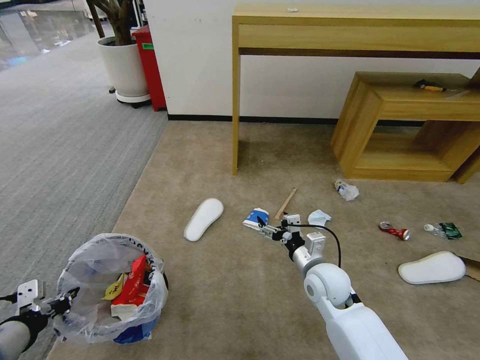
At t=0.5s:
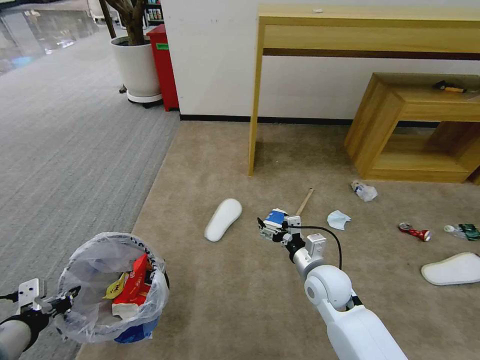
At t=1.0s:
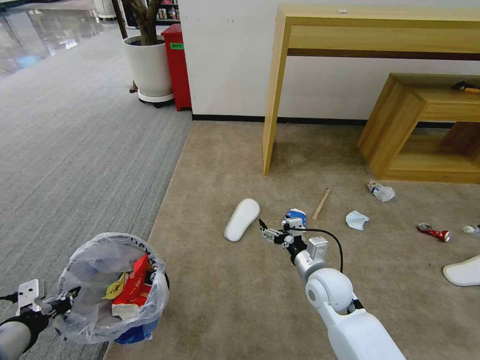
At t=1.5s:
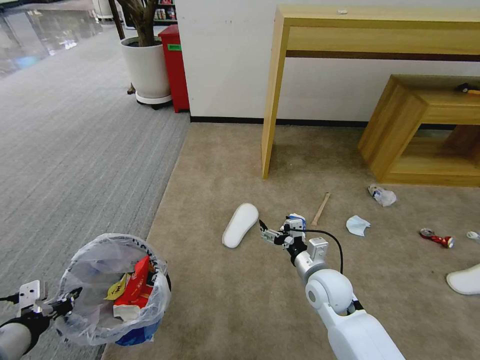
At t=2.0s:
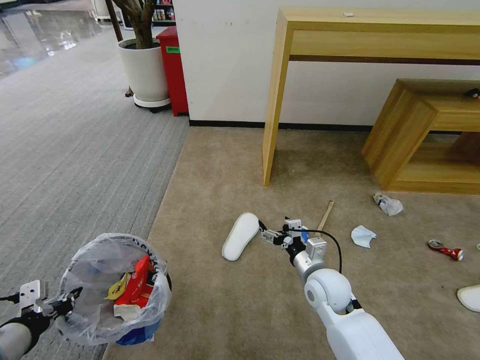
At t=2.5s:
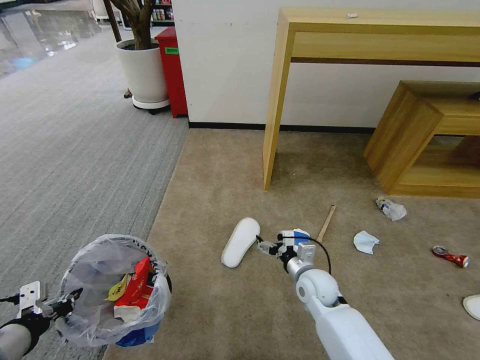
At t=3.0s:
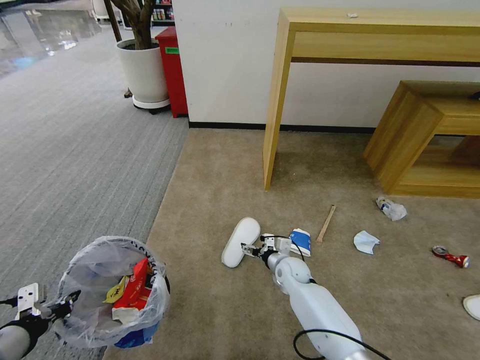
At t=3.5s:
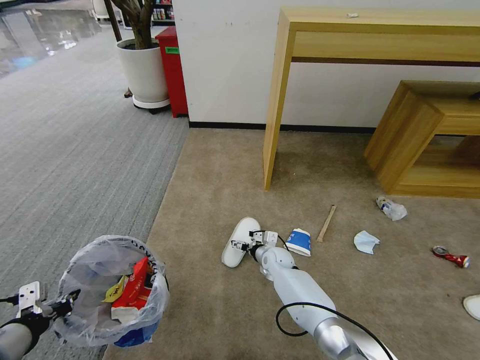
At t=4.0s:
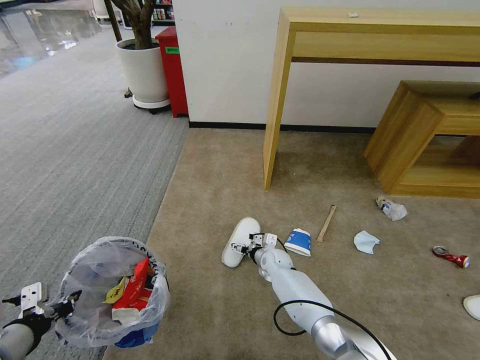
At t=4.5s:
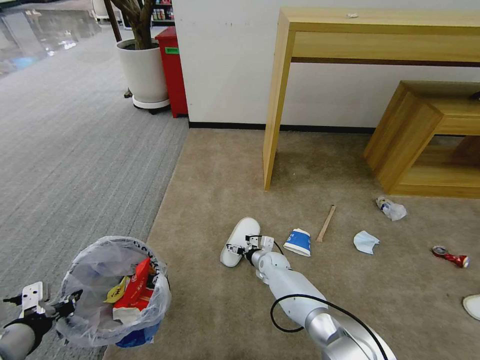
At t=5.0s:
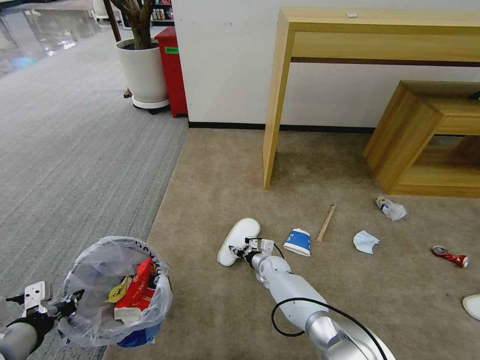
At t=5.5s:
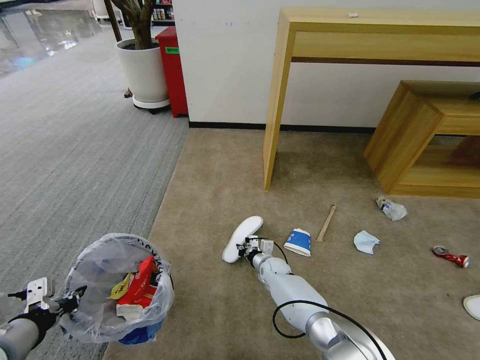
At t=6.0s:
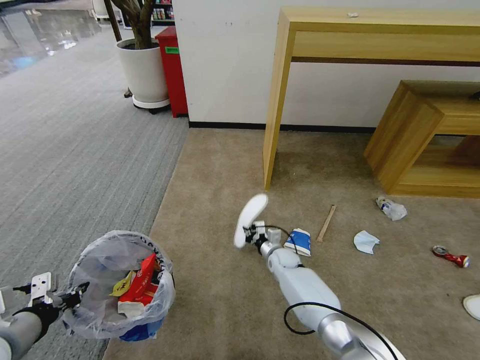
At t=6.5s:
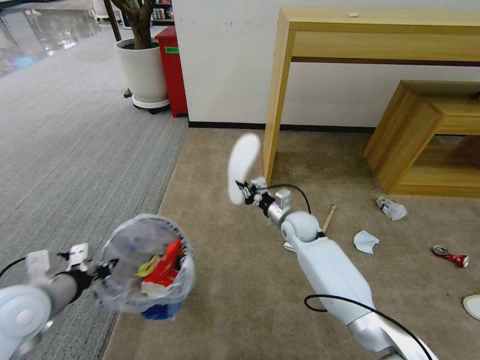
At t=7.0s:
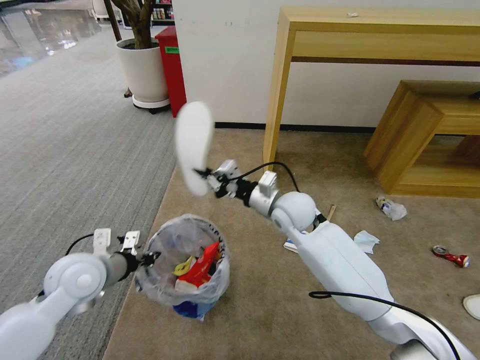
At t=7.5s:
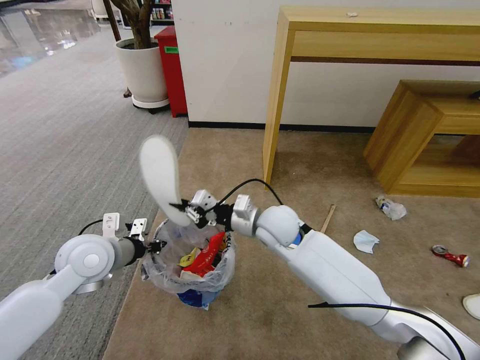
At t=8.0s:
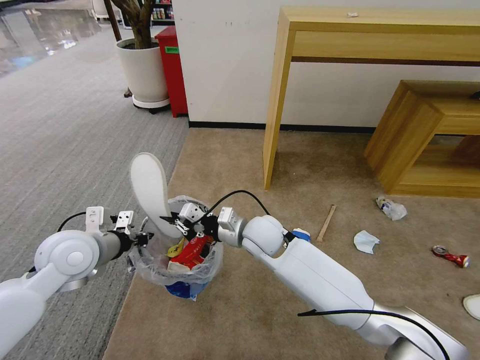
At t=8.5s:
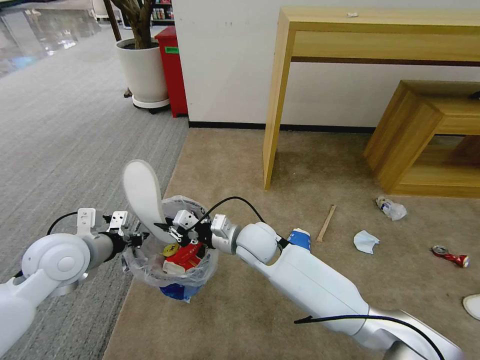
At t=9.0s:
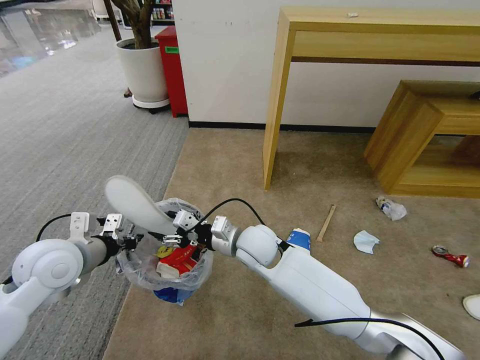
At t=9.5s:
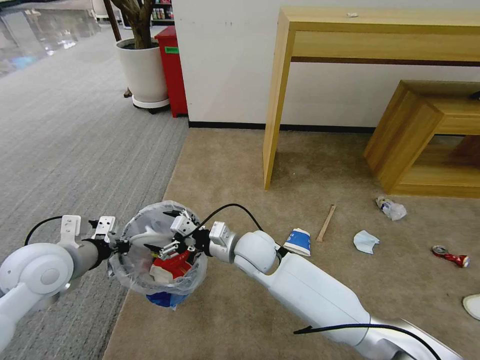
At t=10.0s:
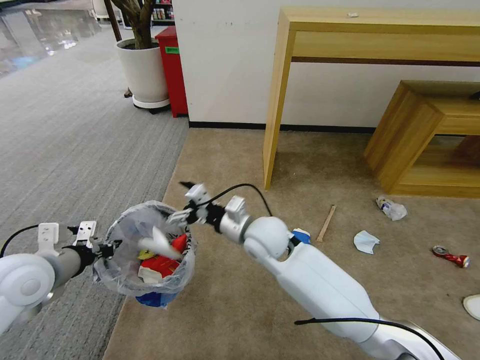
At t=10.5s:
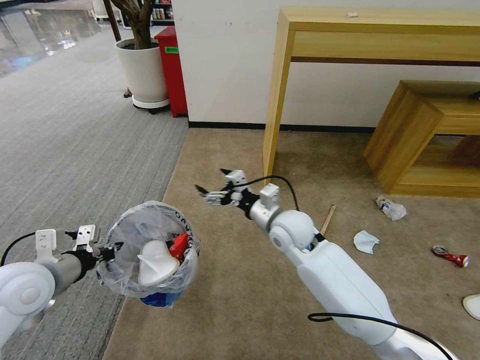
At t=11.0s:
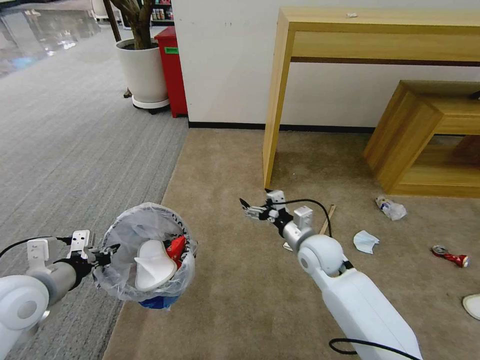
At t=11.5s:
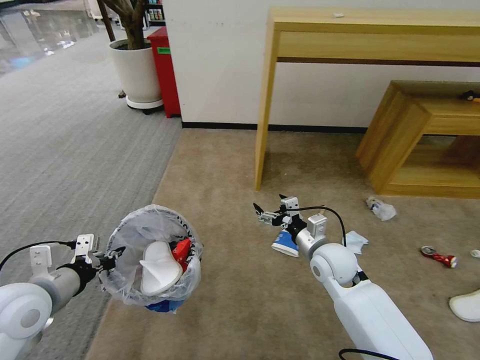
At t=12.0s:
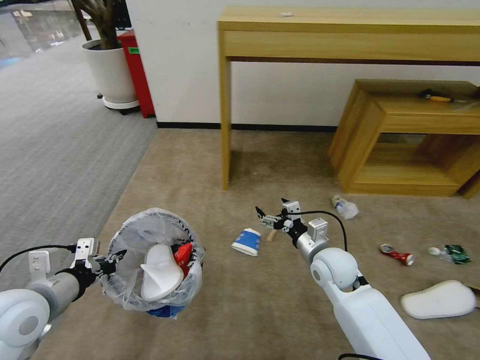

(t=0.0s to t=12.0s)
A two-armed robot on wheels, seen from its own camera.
Task of the whole recording: Pick up the trash bin and place the garbage on the floor into it.
t=2.0s - t=4.0s: The right gripper is displaced downward, forward and to the left by roughly 25 cm.
t=4.0s - t=6.0s: The right gripper closes its fingers.
t=6.0s - t=8.0s: The left gripper shifts approximately 20 cm forward and to the right. Meanwhile the right gripper shifts approximately 25 cm upward and to the left.
t=8.0s - t=10.0s: The left gripper heads to the left and backward, covering roughly 10 cm. The right gripper opens up.
t=10.0s - t=12.0s: The left gripper ends up some 5 cm from where it was, while the right gripper goes some 20 cm to the right and downward.

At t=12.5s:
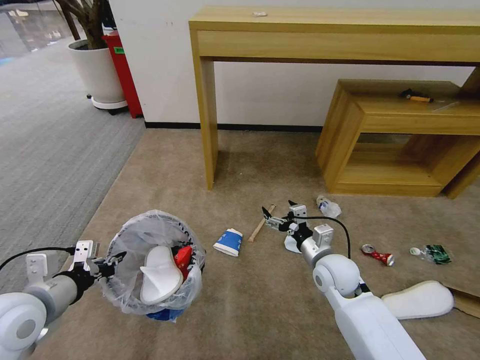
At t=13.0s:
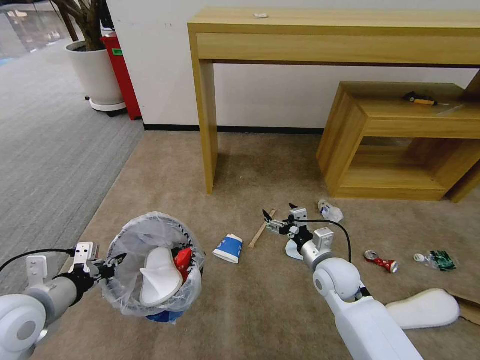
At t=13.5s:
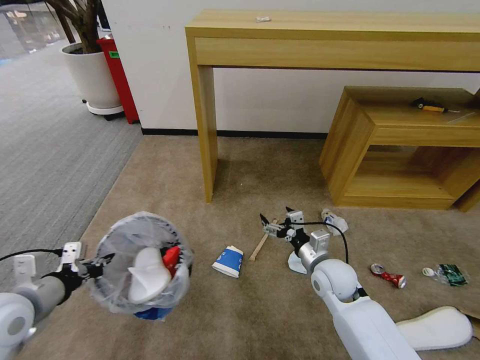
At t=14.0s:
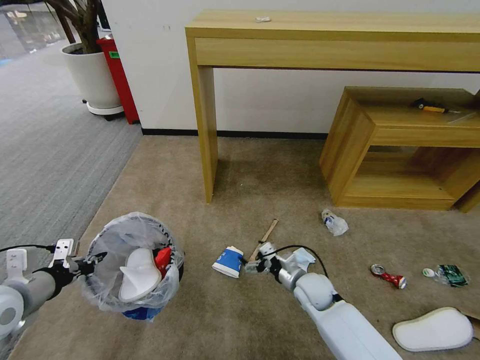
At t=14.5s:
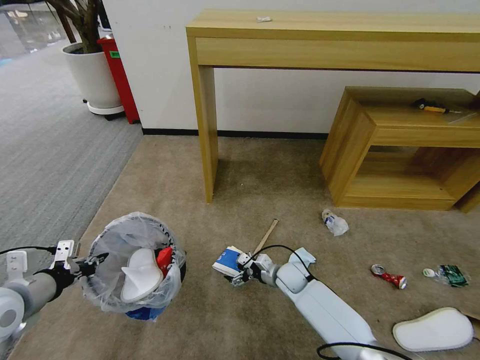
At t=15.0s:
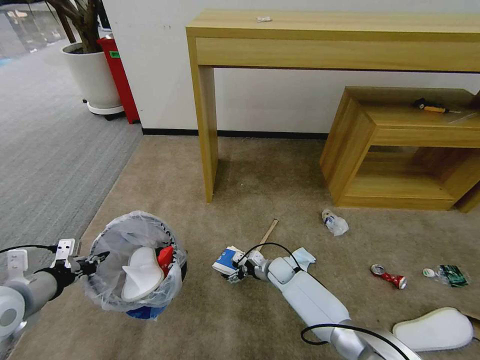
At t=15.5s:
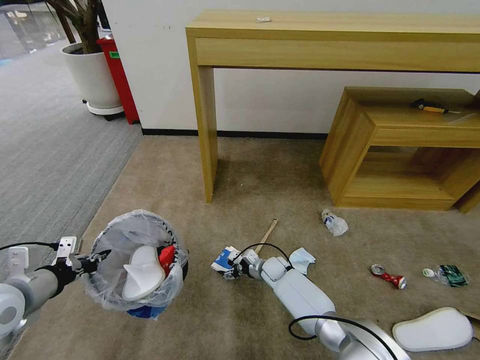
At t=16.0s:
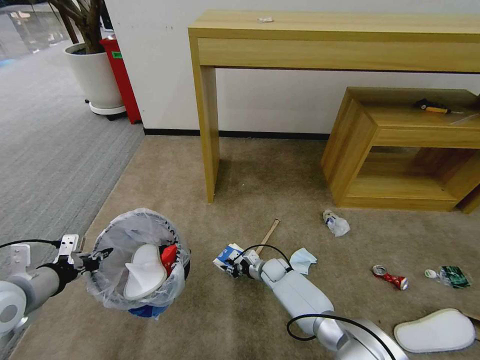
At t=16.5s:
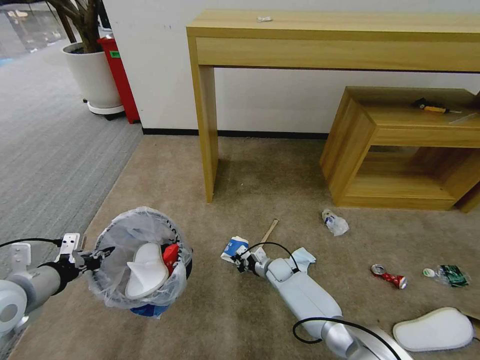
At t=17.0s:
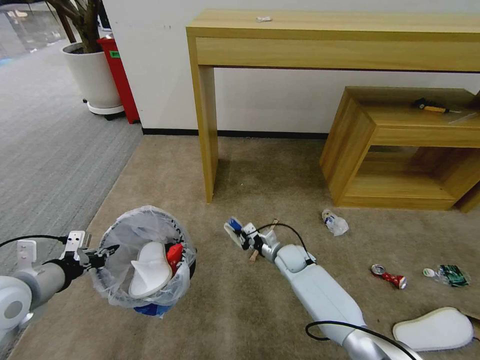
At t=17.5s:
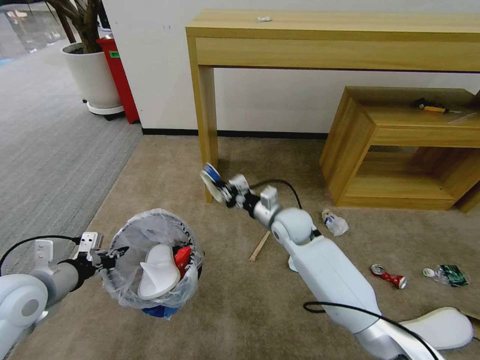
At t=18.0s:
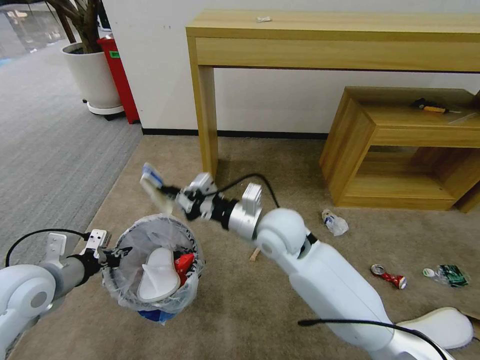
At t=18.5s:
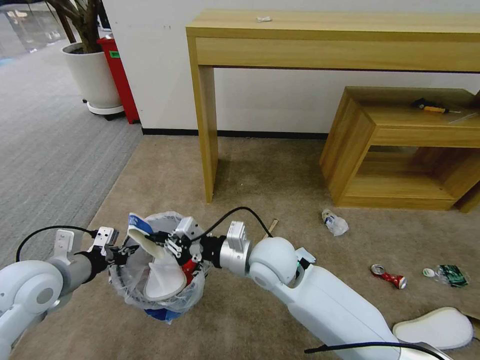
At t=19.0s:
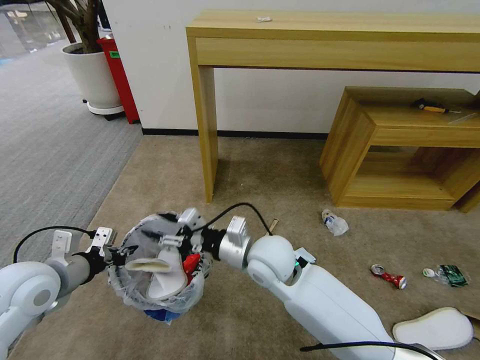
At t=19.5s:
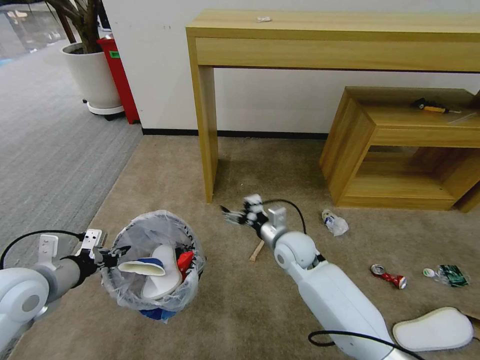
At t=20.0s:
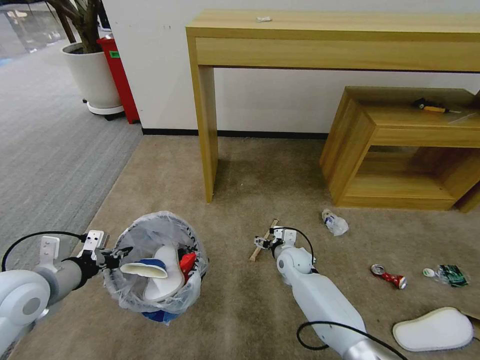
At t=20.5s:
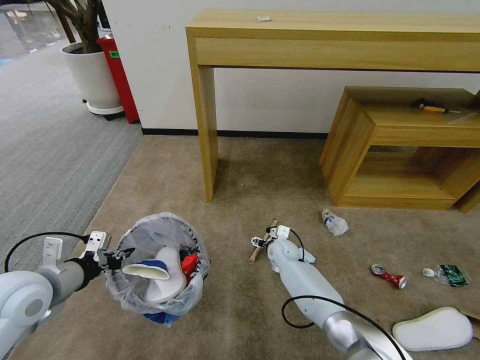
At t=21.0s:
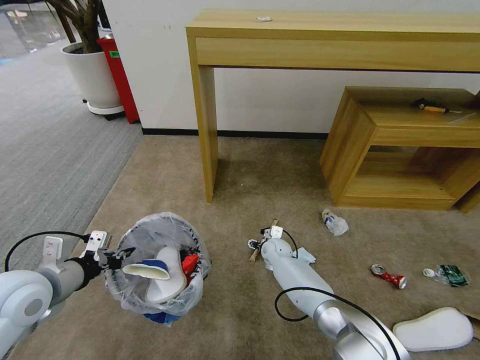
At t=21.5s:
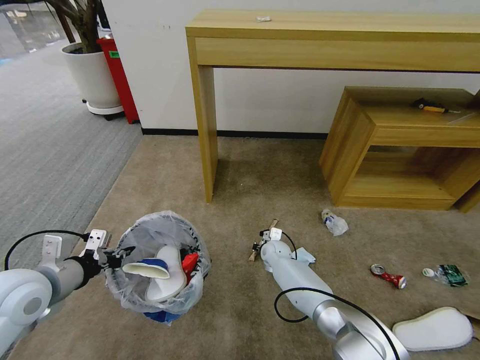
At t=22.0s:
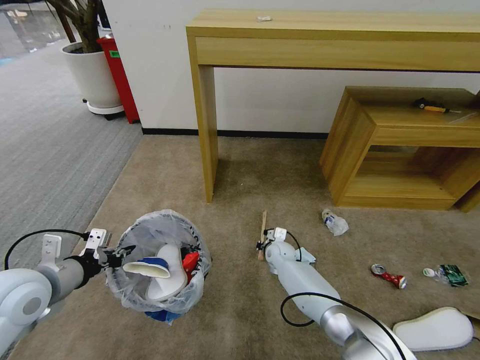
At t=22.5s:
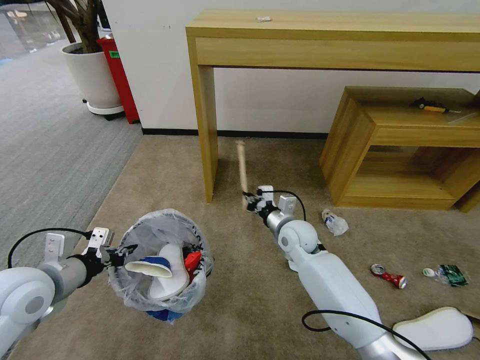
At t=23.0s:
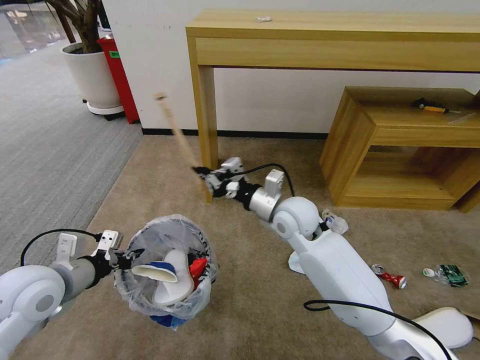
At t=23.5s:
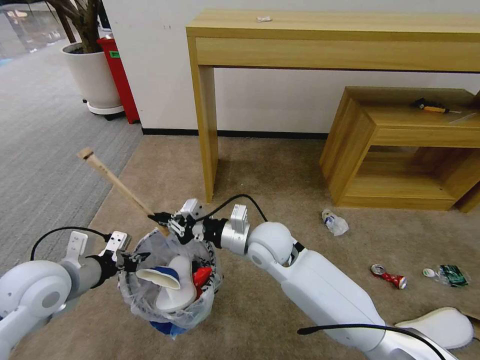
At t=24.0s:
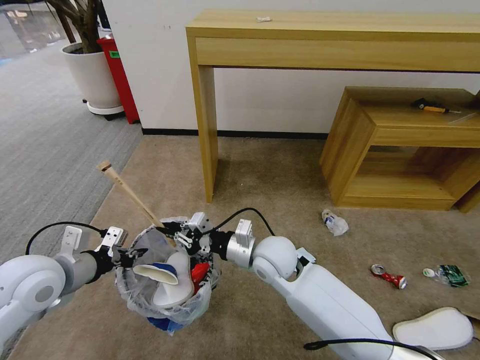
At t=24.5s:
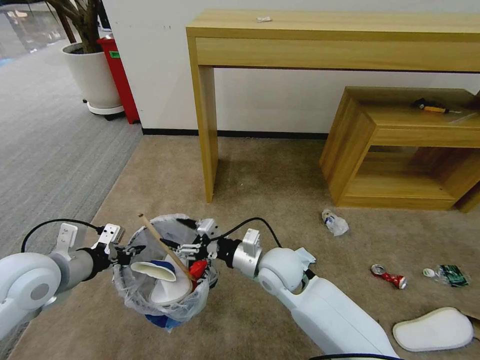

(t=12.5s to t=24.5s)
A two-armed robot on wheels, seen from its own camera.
Task of the whole recording: Pick up the trash bin and place the garbage on the floor into it.
t=12.5s - t=14.5s: The right gripper heads downward and to the left, covering some 15 cm. Meanwhile the left gripper travels to the left by some 5 cm.
t=14.5s - t=16.5s: The right gripper moves about 5 cm, and closes.
t=16.5s - t=18.5s: The left gripper ends up some 5 cm from where it was. Meanwhile the right gripper shifts about 30 cm upward.
t=18.5s - t=20.5s: The right gripper travels downward and forward by some 30 cm, and opens its fingers.
t=20.5s - t=22.5s: The right gripper moves upward, some 15 cm, and closes up.
t=22.5s - t=24.5s: The right gripper goes roughly 15 cm backward and to the left, goes upward and returns, some 10 cm each way, and opens its fingers.

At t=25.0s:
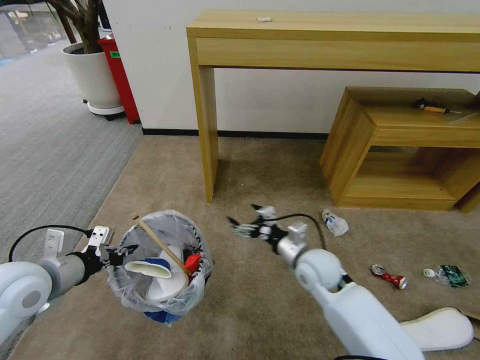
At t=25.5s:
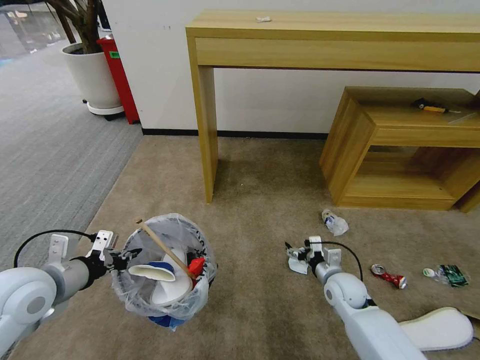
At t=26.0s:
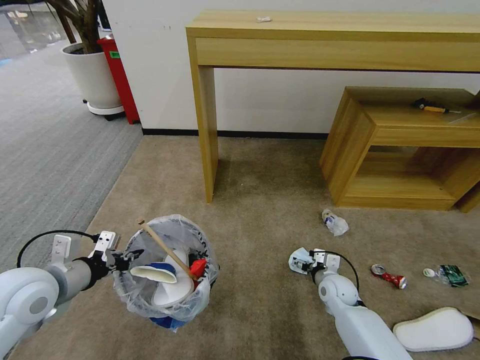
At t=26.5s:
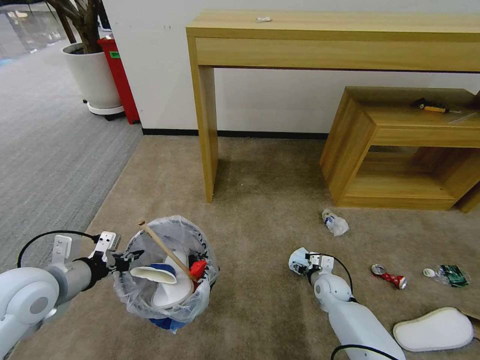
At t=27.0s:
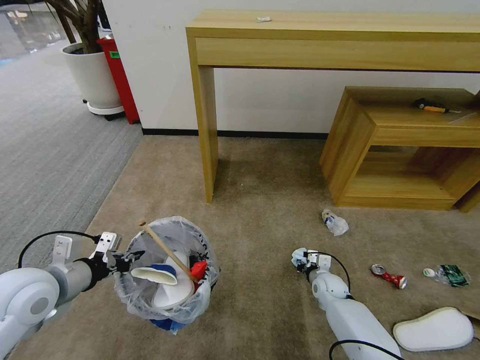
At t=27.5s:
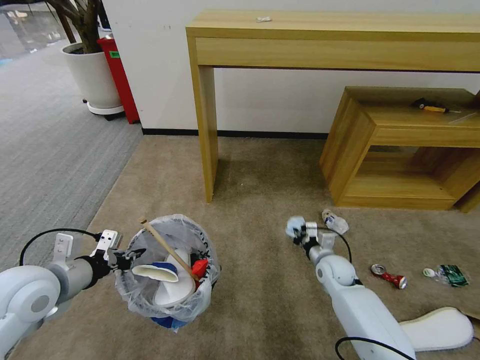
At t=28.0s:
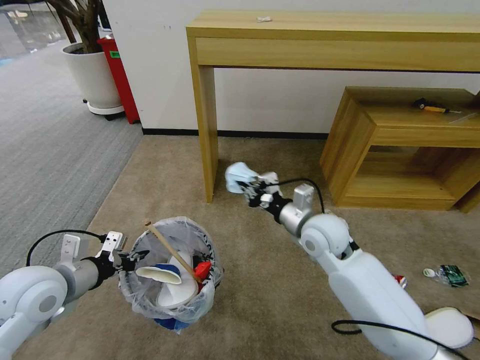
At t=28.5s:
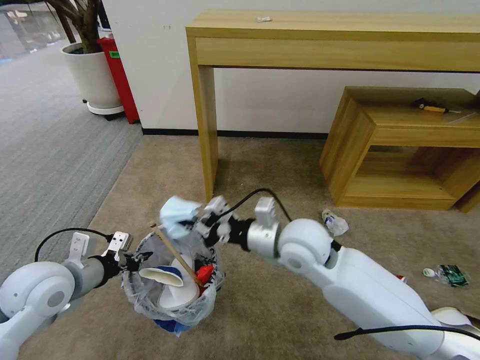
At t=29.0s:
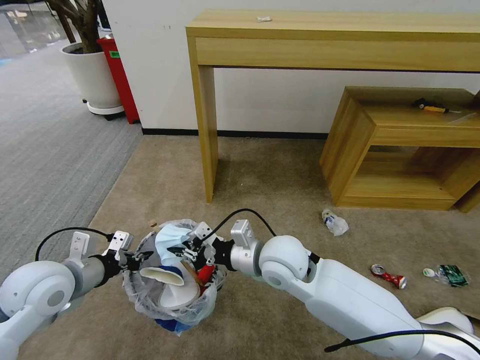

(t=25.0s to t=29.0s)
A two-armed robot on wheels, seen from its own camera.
Task of the whole recording: Pick up the trash bin and place the garbage on the floor into it.
t=25.0s - t=27.0s: The right gripper moves downward and to the right, about 25 cm, and closes its fingers.
t=27.0s - t=29.0s: The right gripper heads upward and to the left, covering approximately 35 cm.
